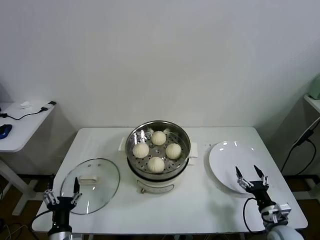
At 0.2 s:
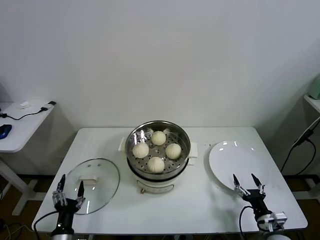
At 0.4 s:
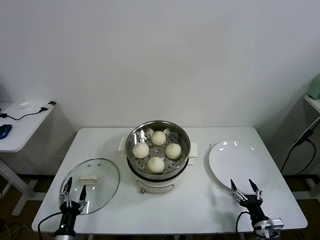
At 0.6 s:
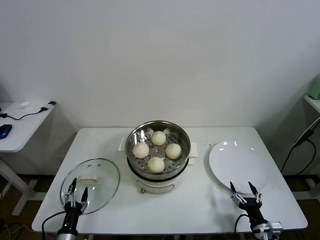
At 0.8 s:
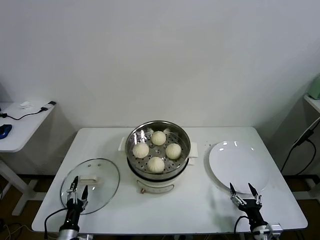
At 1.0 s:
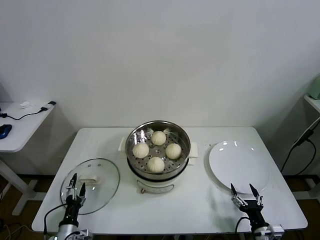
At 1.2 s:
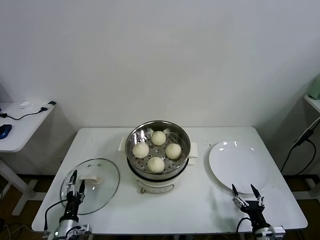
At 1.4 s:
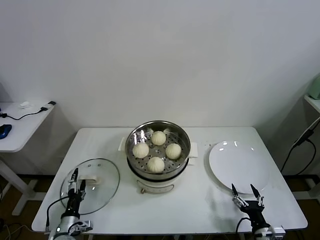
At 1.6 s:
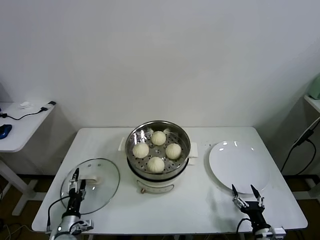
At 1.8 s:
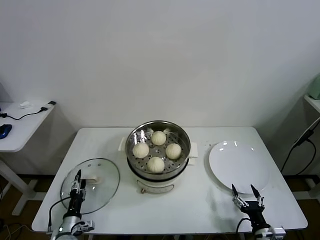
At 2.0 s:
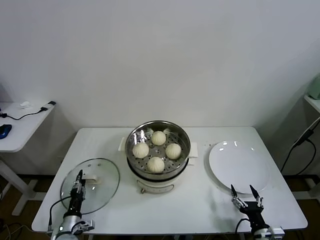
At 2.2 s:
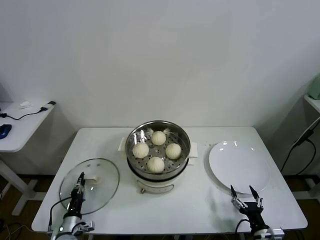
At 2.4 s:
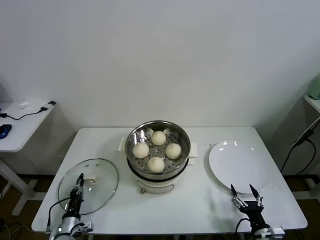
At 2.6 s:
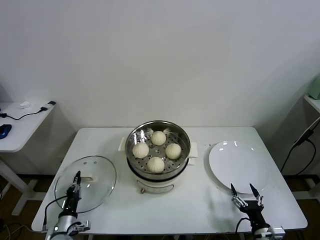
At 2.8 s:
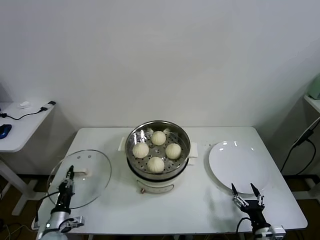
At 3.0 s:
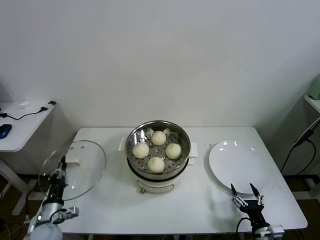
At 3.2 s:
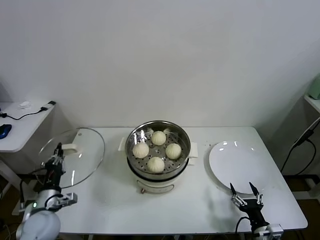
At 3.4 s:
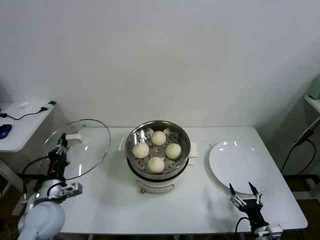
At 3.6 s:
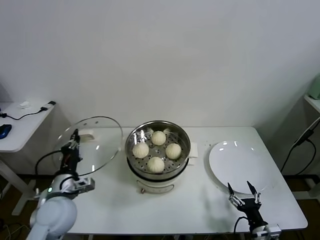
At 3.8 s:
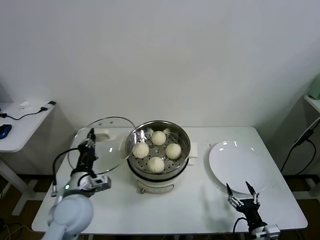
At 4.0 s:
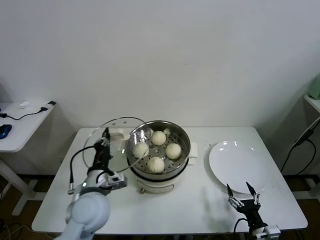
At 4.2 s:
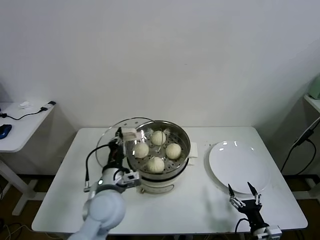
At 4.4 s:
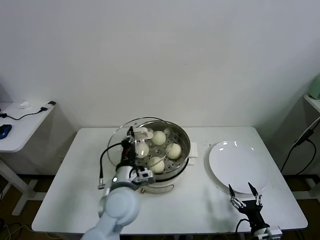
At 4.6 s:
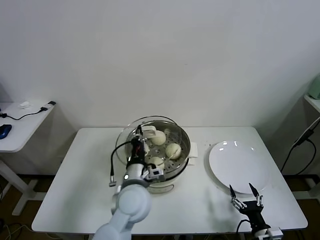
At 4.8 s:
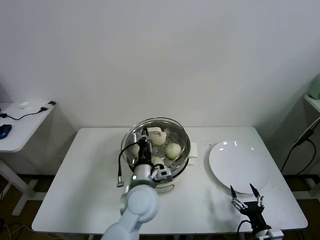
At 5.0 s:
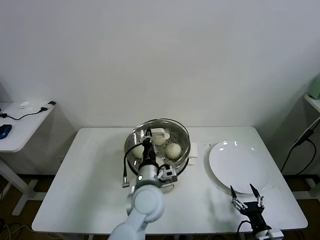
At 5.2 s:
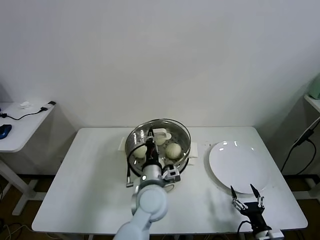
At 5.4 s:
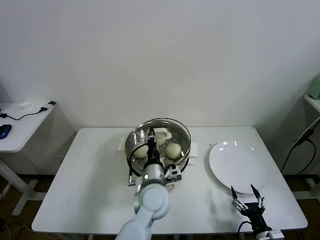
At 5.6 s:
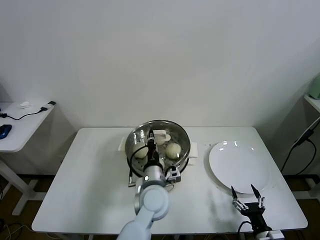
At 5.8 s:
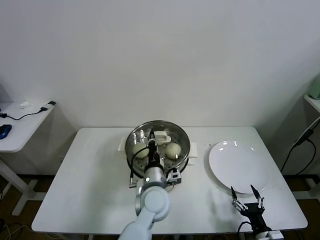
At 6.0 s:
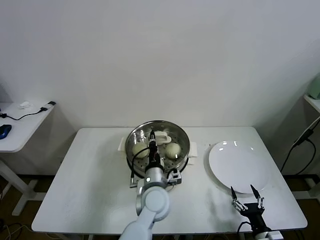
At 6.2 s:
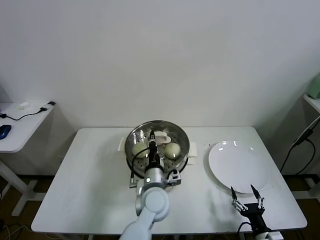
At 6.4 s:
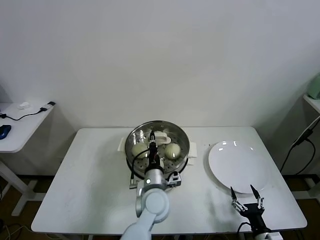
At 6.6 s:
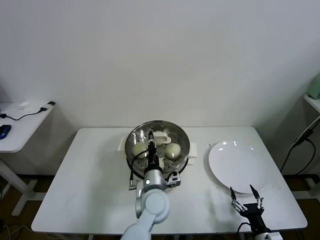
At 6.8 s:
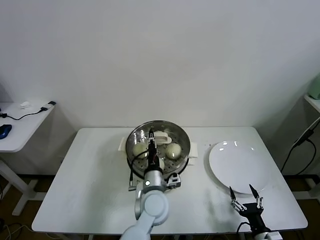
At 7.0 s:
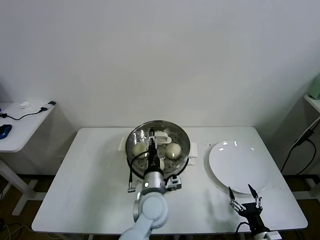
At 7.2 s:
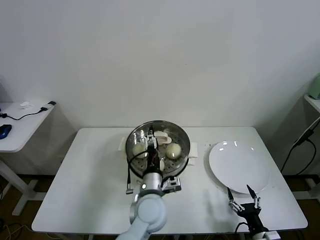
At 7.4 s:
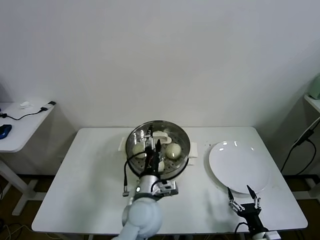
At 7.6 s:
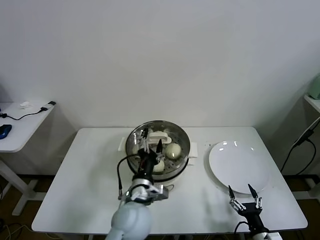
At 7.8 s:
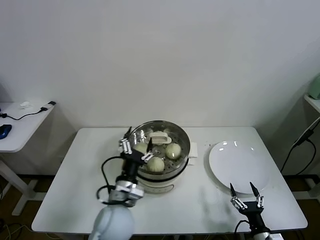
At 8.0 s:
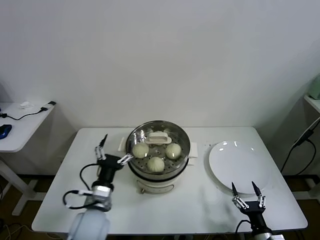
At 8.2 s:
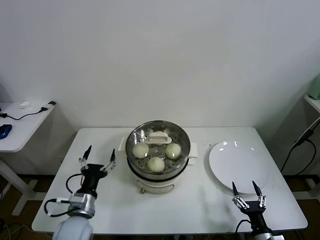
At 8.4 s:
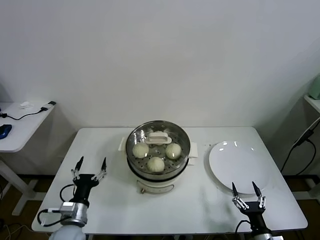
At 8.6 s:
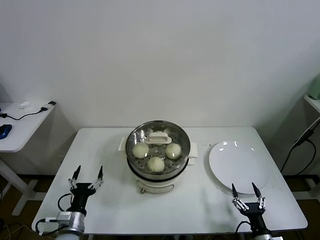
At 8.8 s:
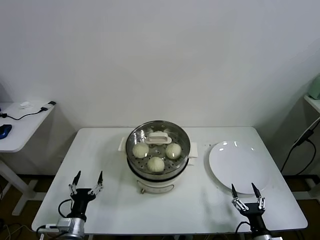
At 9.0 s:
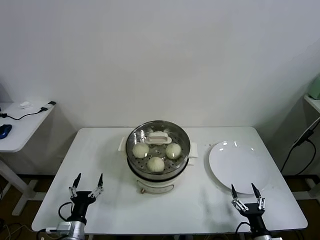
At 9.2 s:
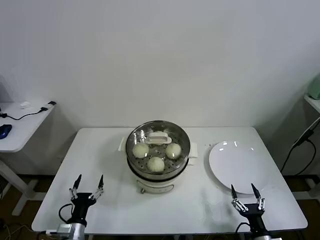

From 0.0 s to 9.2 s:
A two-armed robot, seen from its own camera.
Task of the whole recording: take steamed baozi put them in steamer.
Step, from 0.0 s to 2.2 s: Grasp the pot lid with left gripper.
Step, from 2.4 s to 7.0 s: Place the pot lid on the steamer with left gripper.
From 0.0 s to 1.6 s: The right gripper moves backward, approximately 5 cm. Meanwhile the left gripper shifts roughly 15 cm downward, forward and to the left.
From 1.6 s to 3.0 s: The left gripper travels upward by some 10 cm, and closes up.
From 3.0 s to 4.6 s: The left gripper goes roughly 35 cm to the right and upward.
From 4.6 s to 6.2 s: The left gripper goes about 10 cm to the right and downward.
From 6.2 s to 7.6 s: The left gripper travels backward by roughly 5 cm, and opens its fingers.
From 7.6 s to 9.2 s: The left gripper moves to the left and downward, approximately 30 cm.

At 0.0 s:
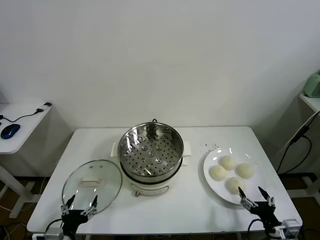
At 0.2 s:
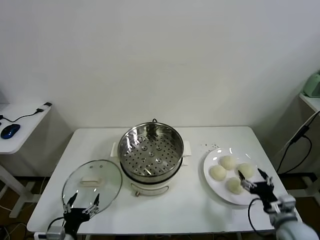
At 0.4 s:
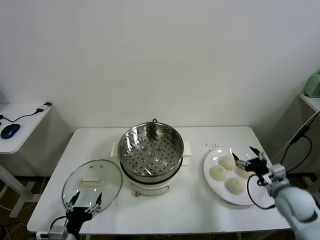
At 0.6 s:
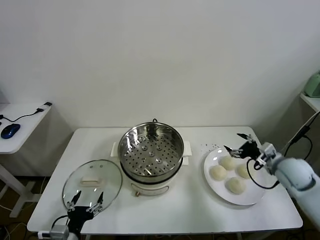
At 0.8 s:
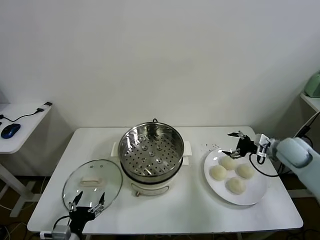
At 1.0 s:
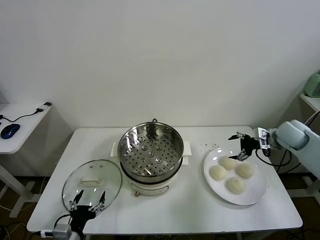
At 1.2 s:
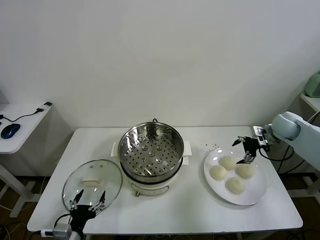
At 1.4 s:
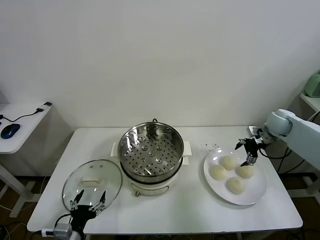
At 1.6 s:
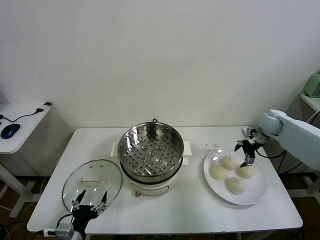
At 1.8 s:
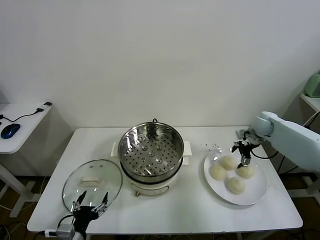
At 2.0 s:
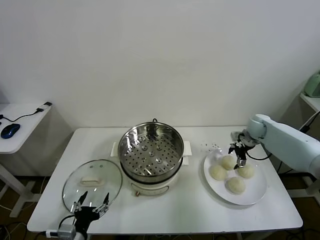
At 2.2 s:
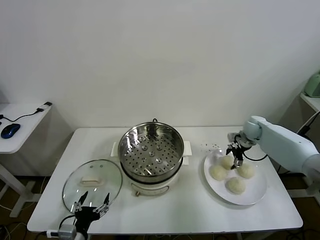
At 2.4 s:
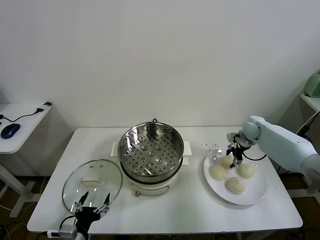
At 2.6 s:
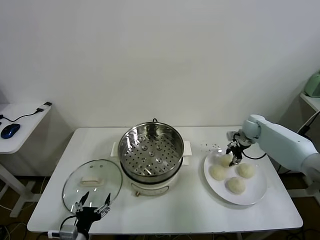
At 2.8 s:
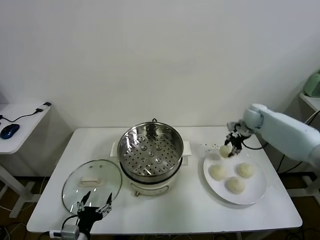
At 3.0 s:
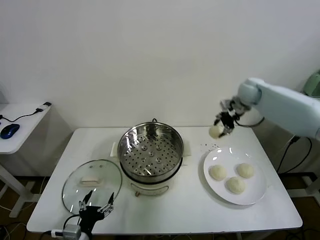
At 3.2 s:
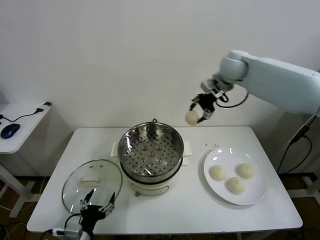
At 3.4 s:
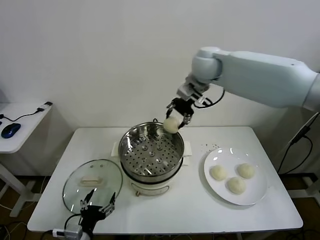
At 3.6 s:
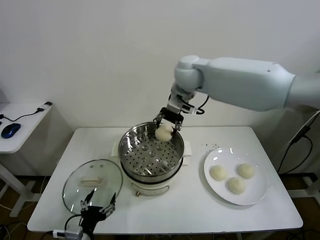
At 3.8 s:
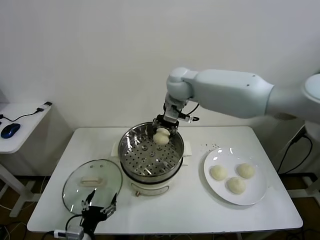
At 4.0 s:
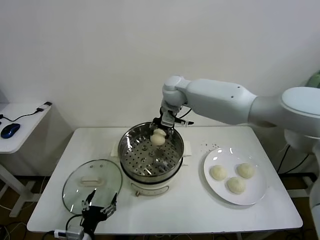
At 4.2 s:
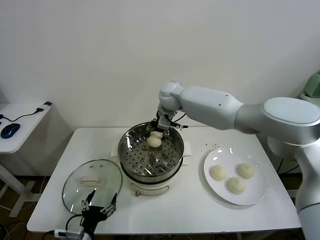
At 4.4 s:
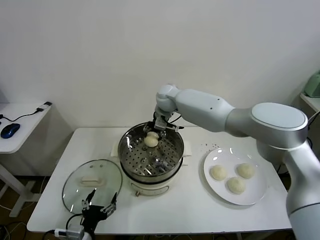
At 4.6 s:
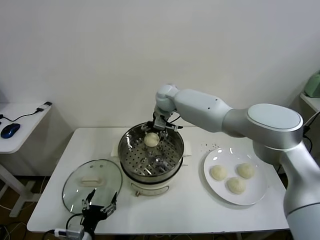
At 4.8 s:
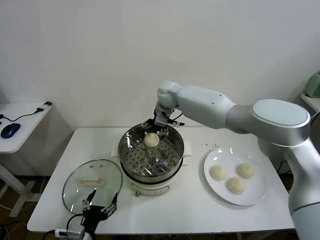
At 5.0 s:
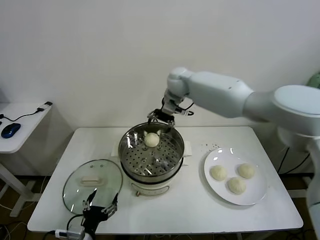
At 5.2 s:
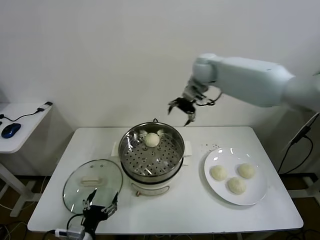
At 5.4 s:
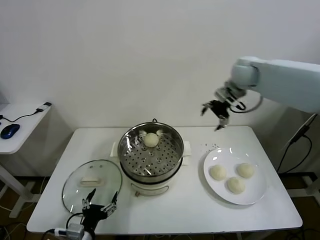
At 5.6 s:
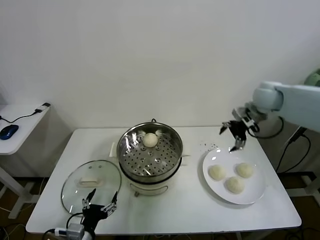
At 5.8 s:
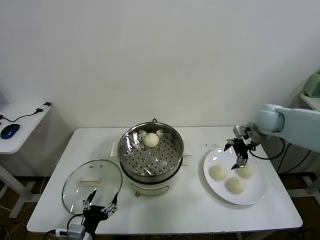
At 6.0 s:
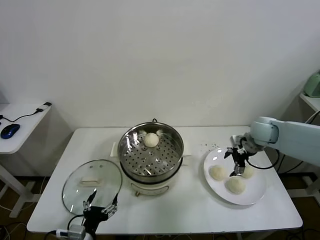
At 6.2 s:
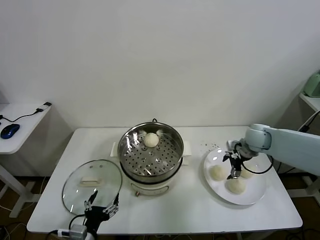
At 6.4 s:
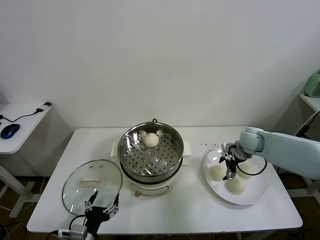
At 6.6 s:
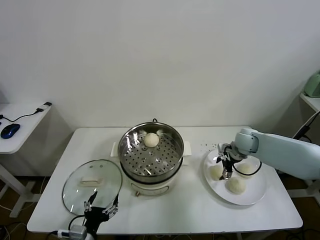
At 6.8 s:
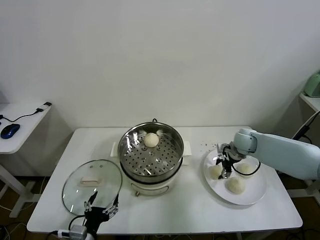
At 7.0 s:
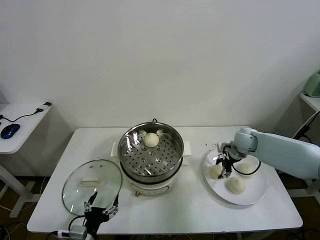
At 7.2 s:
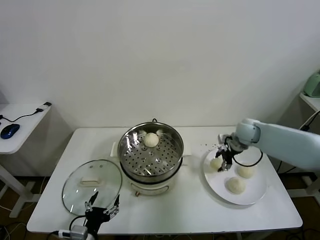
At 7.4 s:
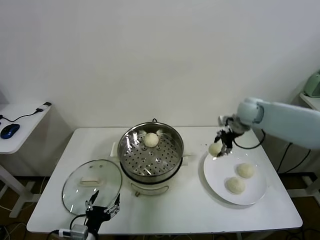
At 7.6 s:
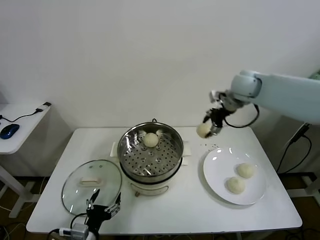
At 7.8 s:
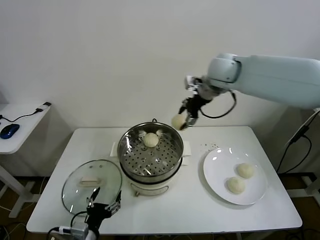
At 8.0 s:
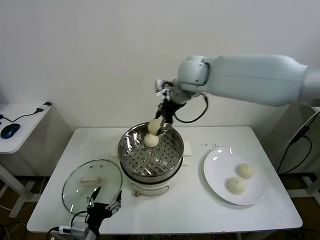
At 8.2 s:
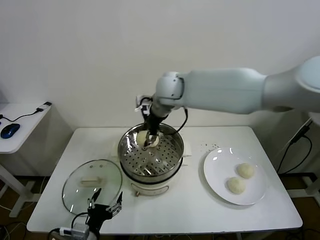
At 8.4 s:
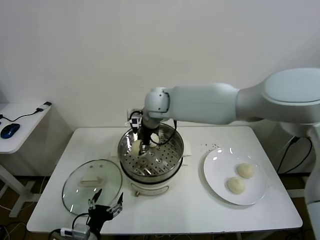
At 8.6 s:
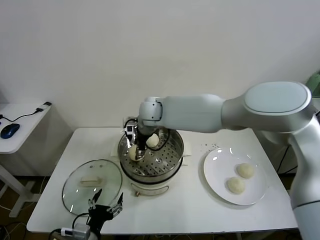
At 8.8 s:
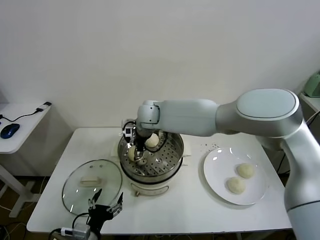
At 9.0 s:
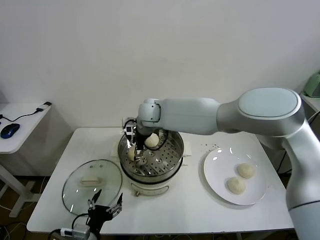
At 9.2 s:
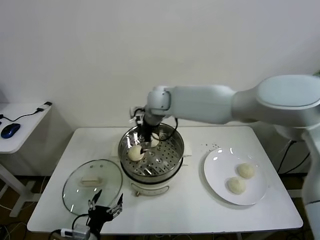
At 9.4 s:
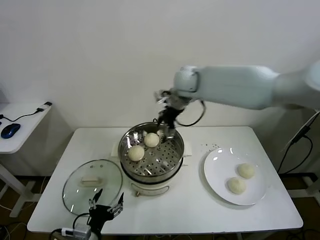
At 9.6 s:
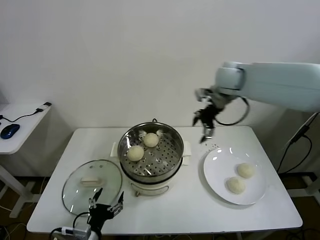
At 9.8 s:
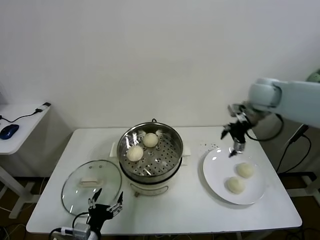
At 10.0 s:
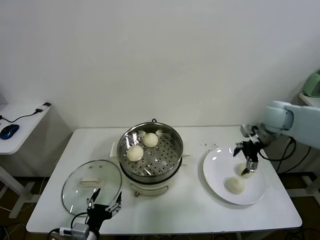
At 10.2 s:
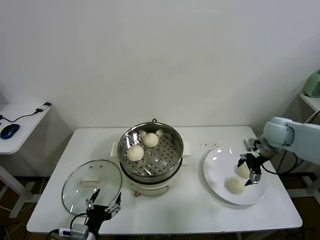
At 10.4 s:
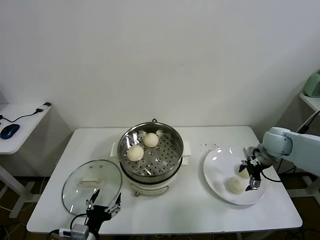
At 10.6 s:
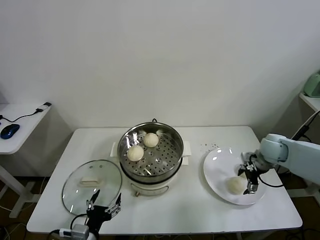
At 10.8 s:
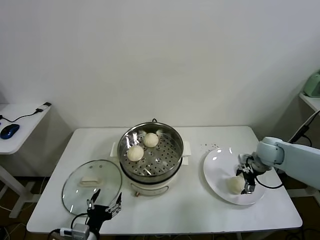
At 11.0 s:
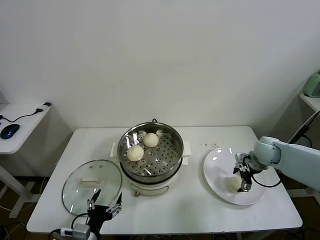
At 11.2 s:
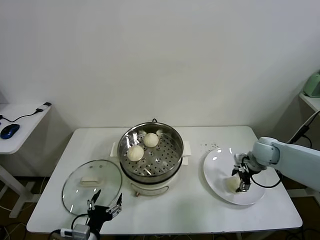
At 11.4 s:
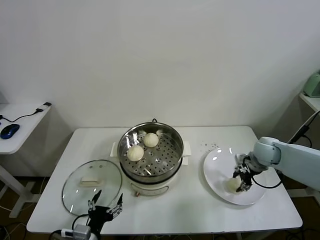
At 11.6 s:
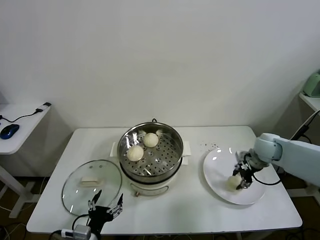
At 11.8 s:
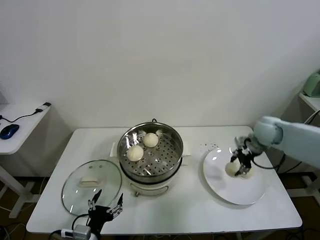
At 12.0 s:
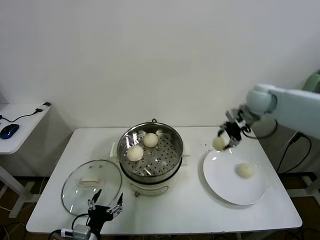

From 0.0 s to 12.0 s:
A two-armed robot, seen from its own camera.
Task of the whole recording: take steamed baozi put them in steamer.
Step, from 0.0 s to 2.4 s: Grasp the baozi in the plate with right gripper.
Step, from 2.8 s to 4.6 s: Place the baozi on the steamer with right gripper.
Step, from 5.0 s to 7.0 s: Grasp the baozi in the plate with right gripper.
Step, from 7.2 s to 9.0 s: Place the baozi on the steamer with right gripper.
Step, from 9.2 s to 11.2 s: Grasp the baozi in the plate with right gripper.
From 1.6 s to 3.0 s: The right gripper travels upward, to the left and forward by some 15 cm, and closes its fingers.
From 3.0 s to 4.4 s: The right gripper shifts some 30 cm to the left, and opens up.
From 4.4 s to 6.0 s: The right gripper heads to the right, covering roughly 35 cm, and opens up.
From 6.0 s to 7.6 s: The right gripper travels upward, to the left and forward by roughly 20 cm, and closes its fingers.
From 7.6 s to 9.0 s: The right gripper shifts some 30 cm to the left, and opens up.
From 9.0 s to 10.4 s: The right gripper is displaced to the right by roughly 40 cm.
From 10.4 s to 12.0 s: The right gripper goes roughly 15 cm upward, to the left and forward, and closes.
